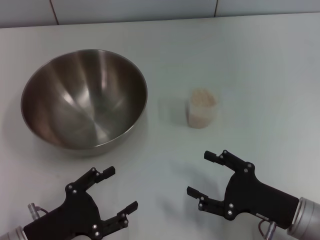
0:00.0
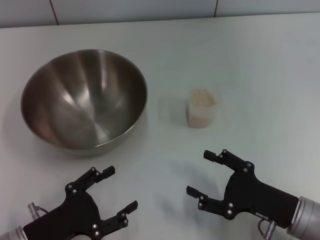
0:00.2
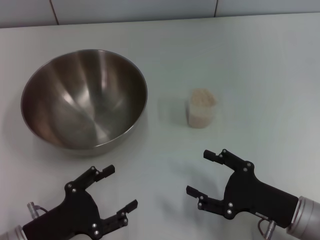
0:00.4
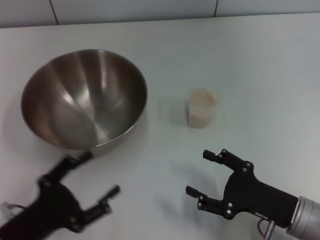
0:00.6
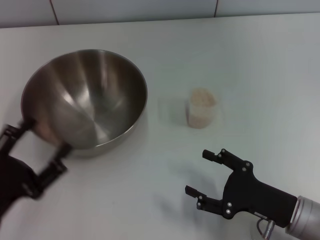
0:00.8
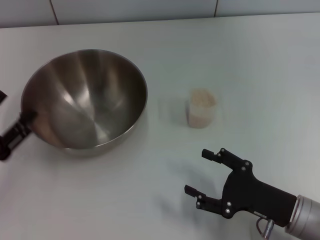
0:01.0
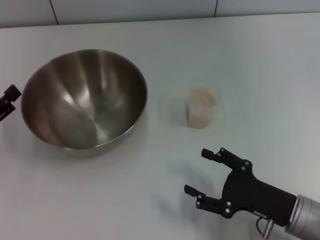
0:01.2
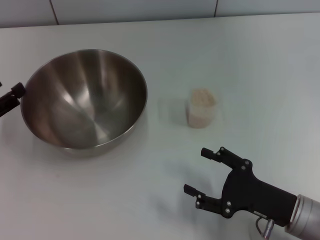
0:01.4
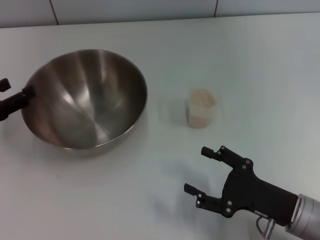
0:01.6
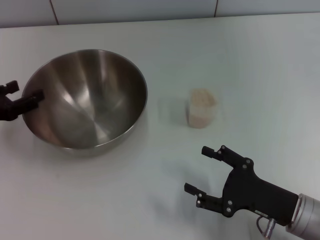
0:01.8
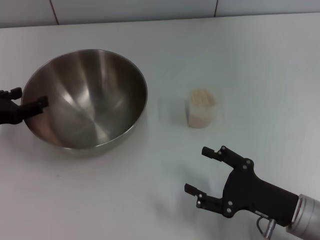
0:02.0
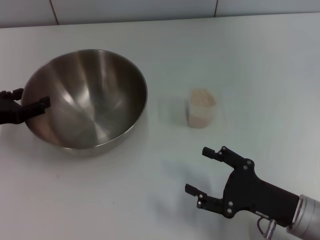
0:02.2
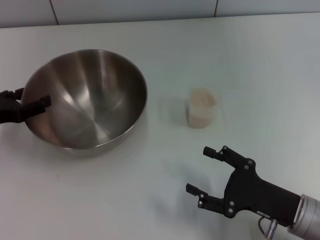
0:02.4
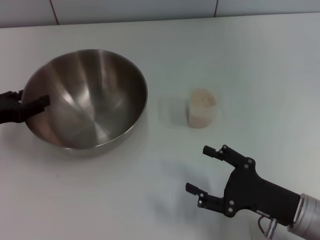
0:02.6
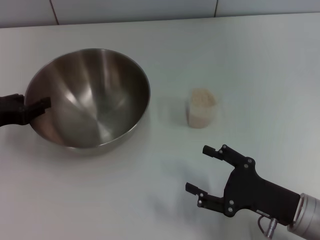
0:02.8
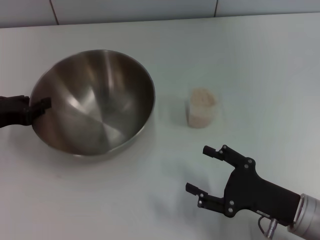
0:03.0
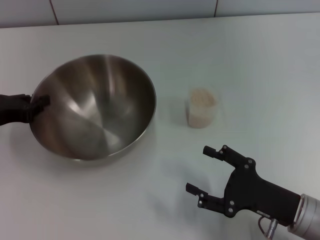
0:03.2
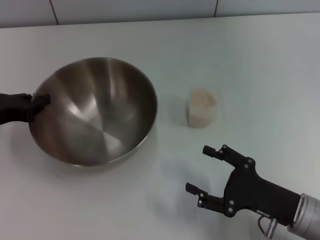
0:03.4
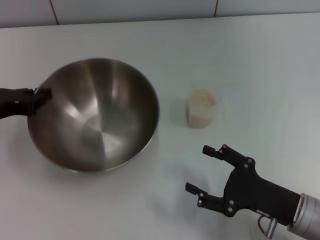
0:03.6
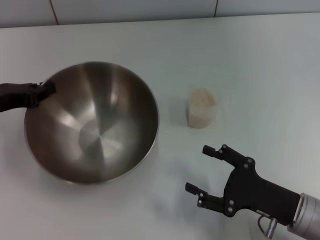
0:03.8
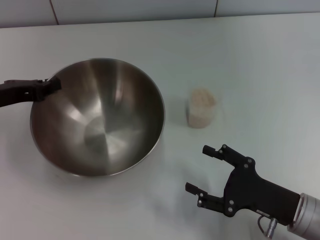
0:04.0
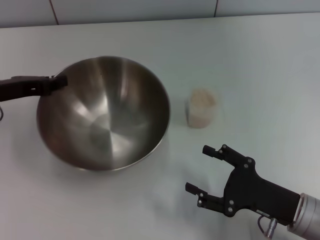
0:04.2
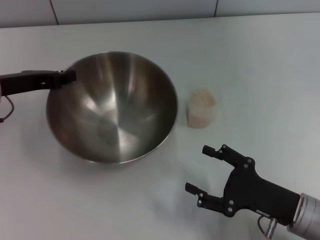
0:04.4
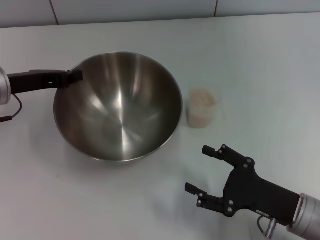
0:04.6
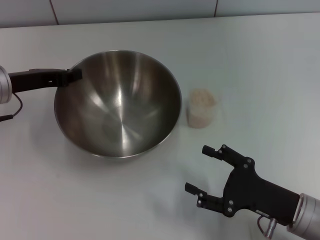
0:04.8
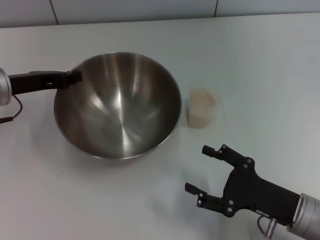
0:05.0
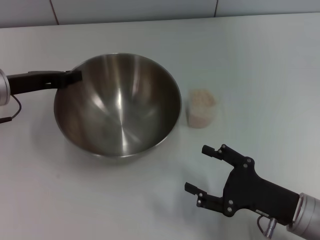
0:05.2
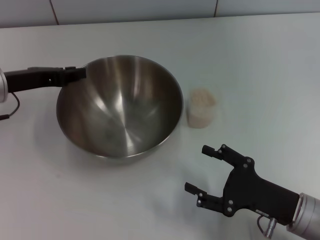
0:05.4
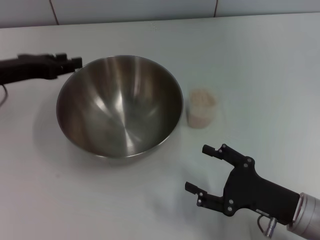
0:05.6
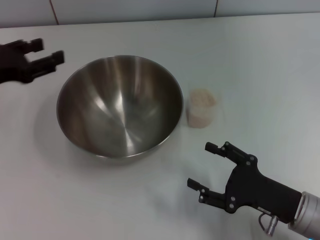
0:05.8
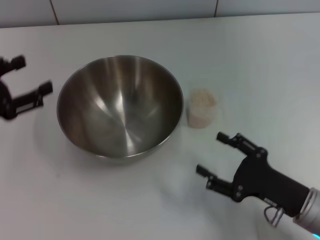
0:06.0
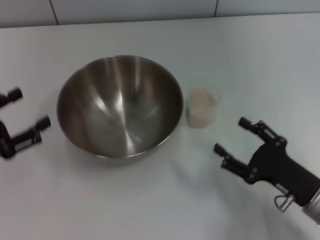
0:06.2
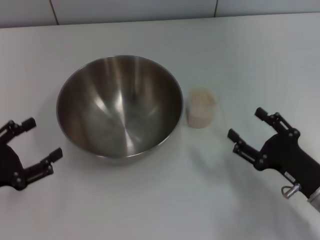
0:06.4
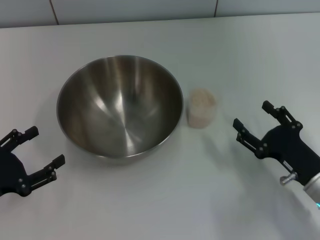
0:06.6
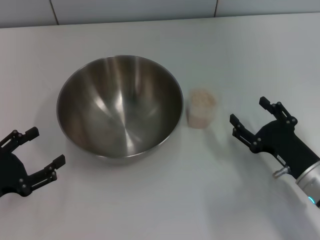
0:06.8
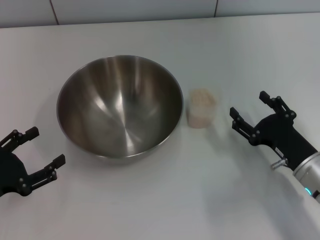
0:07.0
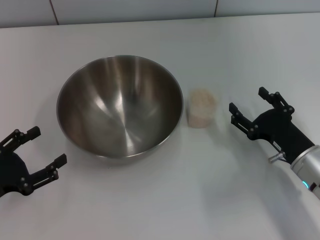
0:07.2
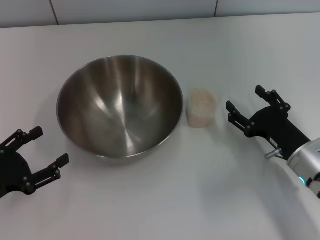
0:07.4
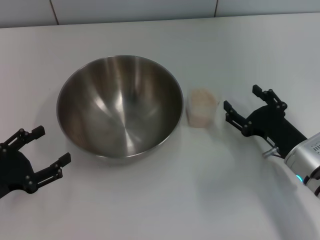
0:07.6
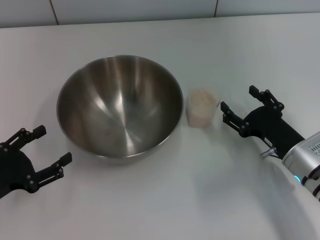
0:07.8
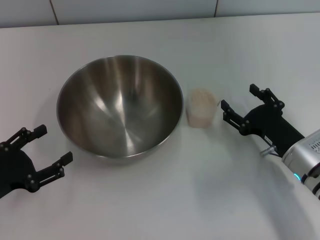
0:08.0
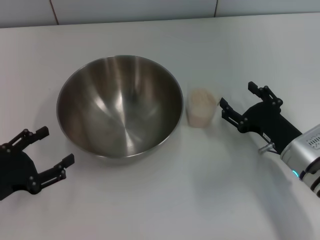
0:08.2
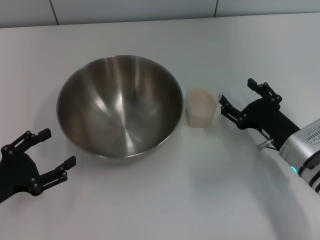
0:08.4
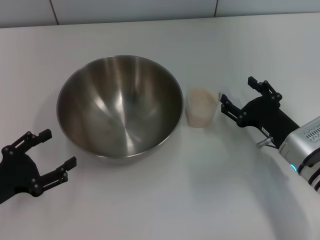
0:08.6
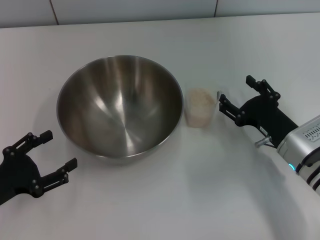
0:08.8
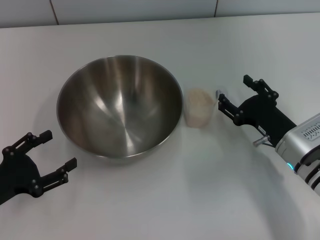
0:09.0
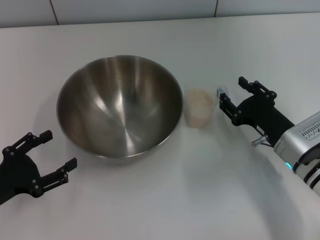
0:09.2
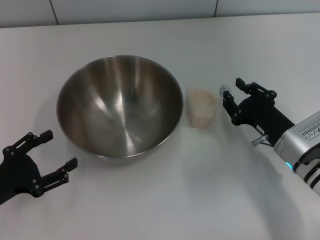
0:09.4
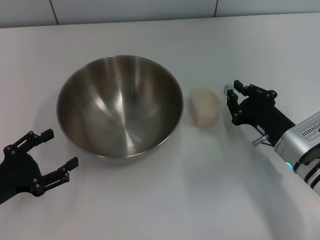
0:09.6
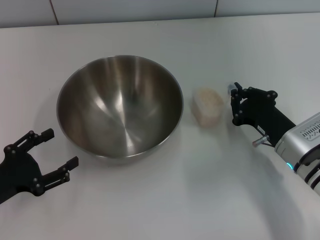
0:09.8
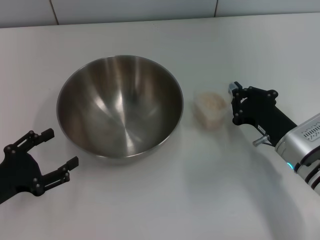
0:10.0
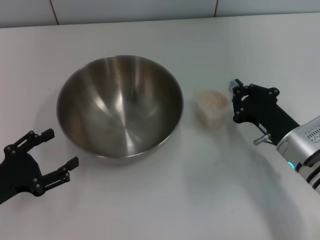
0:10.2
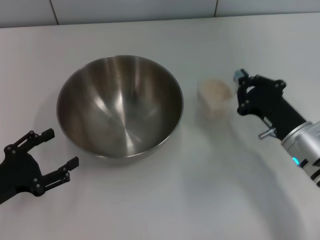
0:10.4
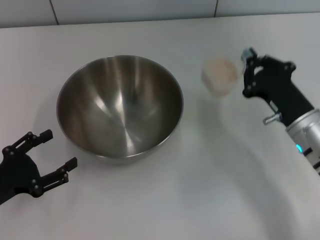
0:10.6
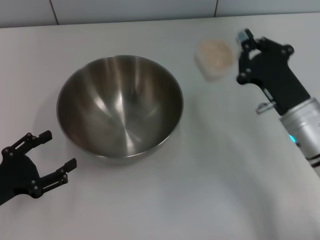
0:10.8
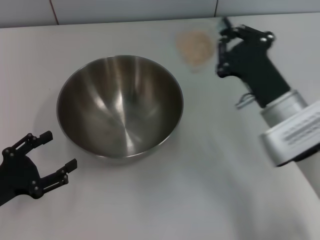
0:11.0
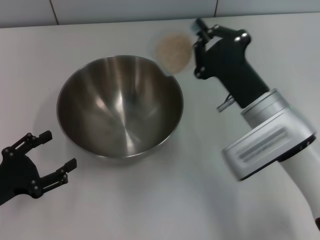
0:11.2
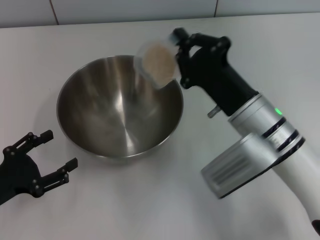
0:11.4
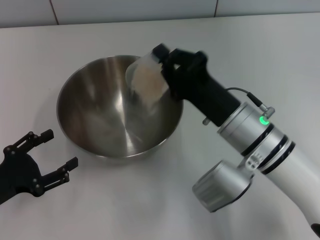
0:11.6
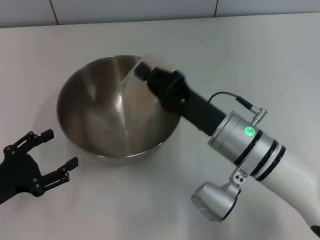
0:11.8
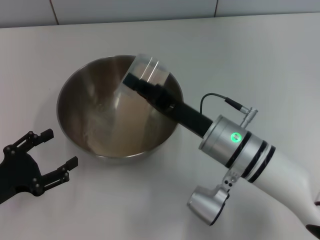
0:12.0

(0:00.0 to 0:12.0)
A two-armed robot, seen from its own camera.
Task of the whole recording: Place the bowl in the middle of the table with one hand and pour the rice from the grain cup into it with the other hand.
Step, 0:00.0 - 0:03.6: Pick up the bowl with the left gripper.
Step, 0:03.8 - 0:05.6: Place the bowl in the center of view with the left gripper.
Step, 0:06.0 - 0:10.4: Pick up the cup with rice in it with the right gripper.
0:00.0 - 0:01.6: The left gripper moves forward, to the left and upward, some 20 cm.
0:01.6 - 0:03.0: The left gripper closes.
0:03.0 - 0:04.4: The left gripper ends up approximately 5 cm from where it was.
0:04.4 - 0:06.0: The left gripper is displaced backward by some 5 cm, and opens its fingers.
0:06.0 - 0:07.6: The left gripper goes about 10 cm downward and backward; the right gripper is displaced forward by some 5 cm.
0:07.6 - 0:09.0: The grippers make only small movements.
0:09.0 - 0:10.4: The right gripper closes up.
0:10.4 - 0:12.0: The right gripper is displaced to the left by approximately 10 cm.

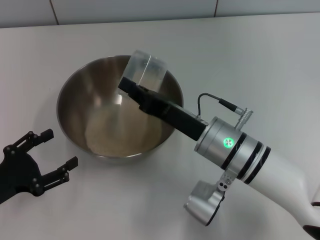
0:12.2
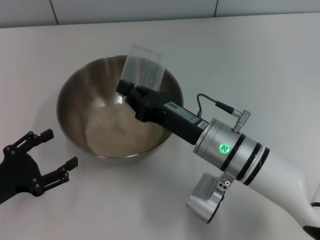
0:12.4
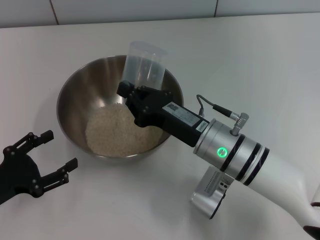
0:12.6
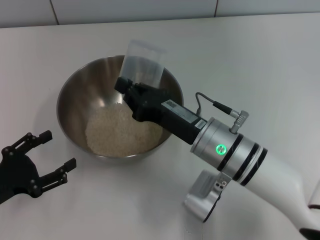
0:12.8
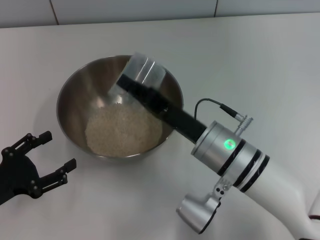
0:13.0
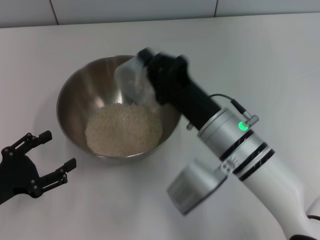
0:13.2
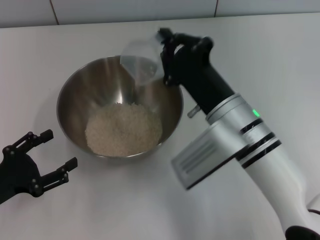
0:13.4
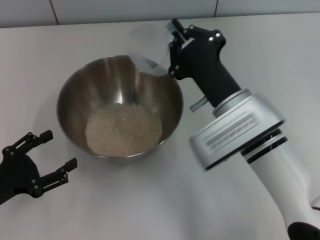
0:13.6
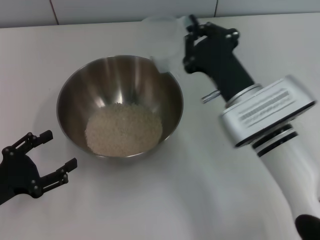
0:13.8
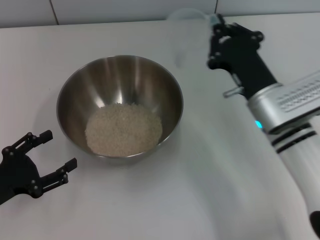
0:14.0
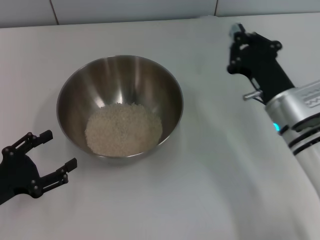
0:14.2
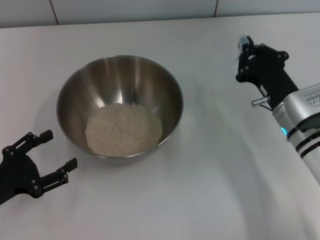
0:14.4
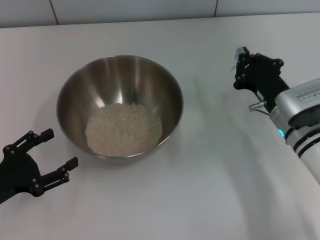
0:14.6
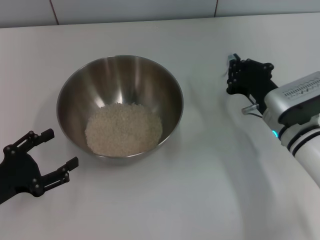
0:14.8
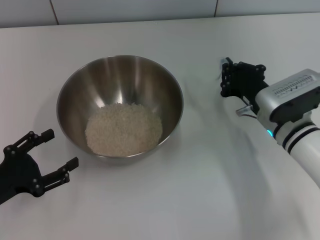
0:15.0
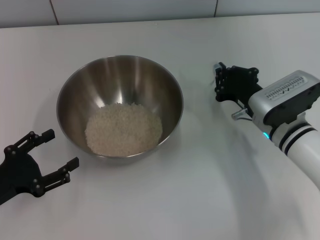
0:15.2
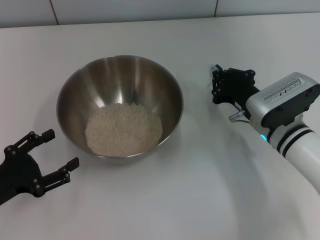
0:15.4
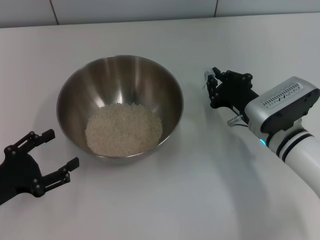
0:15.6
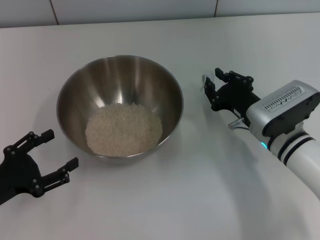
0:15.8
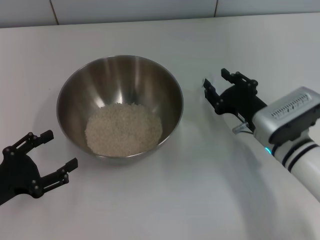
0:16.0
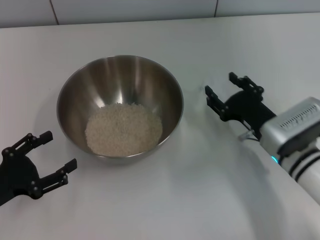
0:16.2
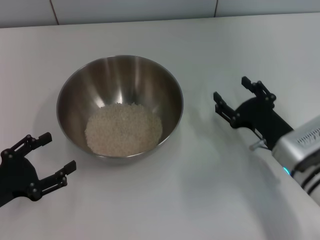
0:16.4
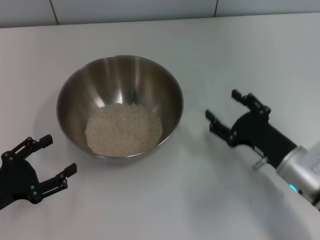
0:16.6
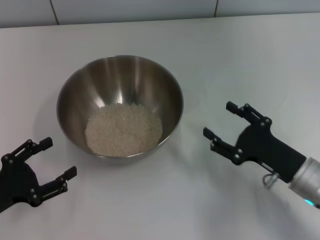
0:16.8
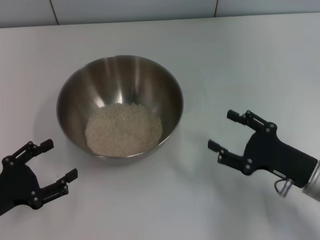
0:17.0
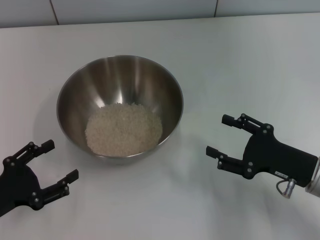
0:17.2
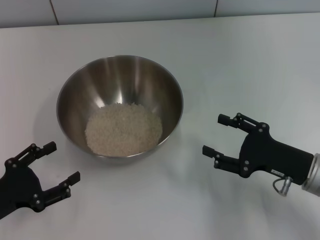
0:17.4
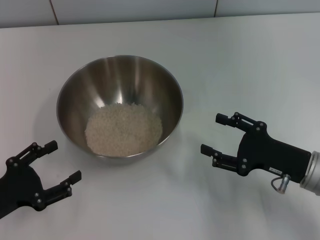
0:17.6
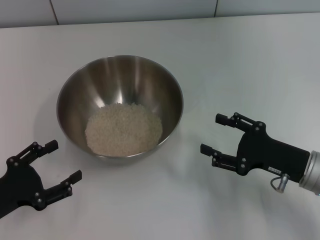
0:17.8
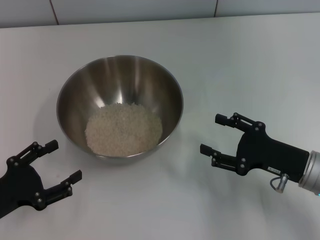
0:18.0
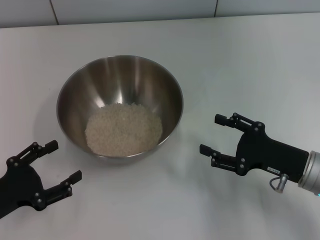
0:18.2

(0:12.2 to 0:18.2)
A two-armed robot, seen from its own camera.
Task of the whole recording: Place the bowl in the middle of the table with one hand and pour the rice from the grain cup into it with the other hand.
Step, 0:12.2 - 0:14.0: Pour the rice from the cup into the bowl with the right gripper.
Step, 0:14.2 - 0:16.4: Place the cup on the table with the right gripper.
0:13.8 - 0:15.2: The right gripper heads to the right and downward, covering some 10 cm.
0:15.2 - 0:16.6: The right gripper goes approximately 10 cm backward, and opens its fingers.

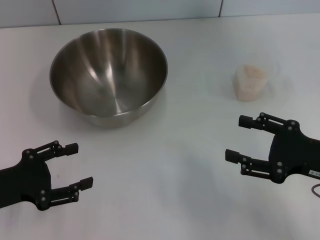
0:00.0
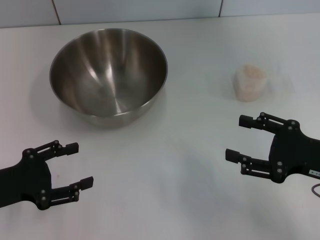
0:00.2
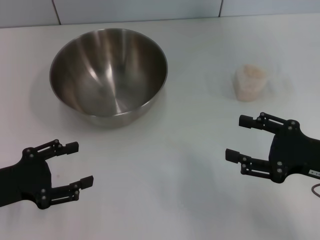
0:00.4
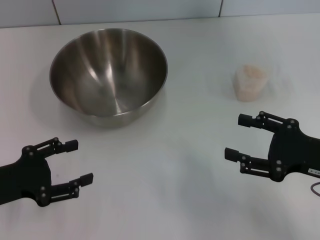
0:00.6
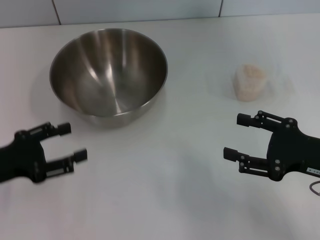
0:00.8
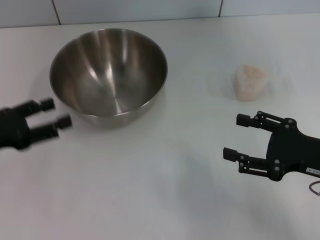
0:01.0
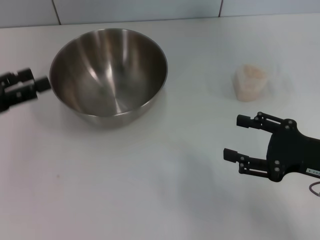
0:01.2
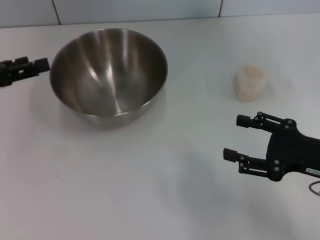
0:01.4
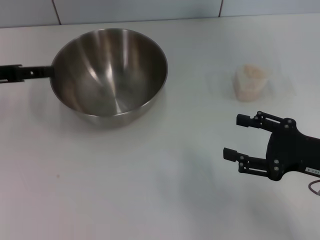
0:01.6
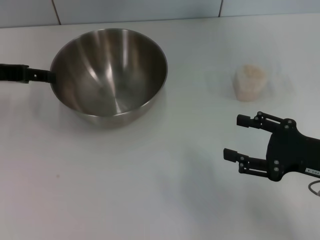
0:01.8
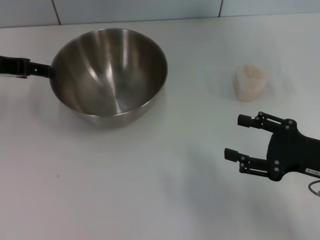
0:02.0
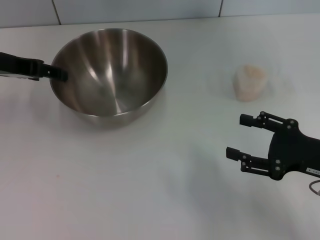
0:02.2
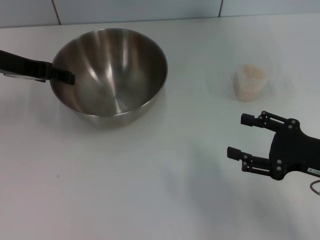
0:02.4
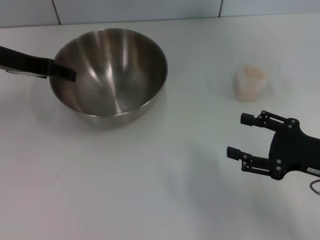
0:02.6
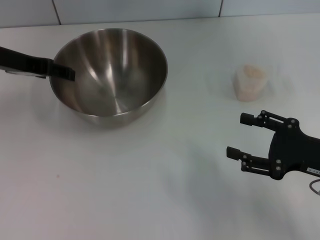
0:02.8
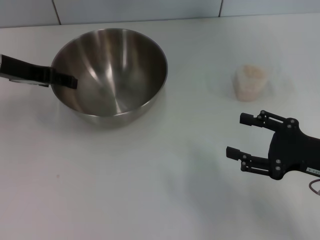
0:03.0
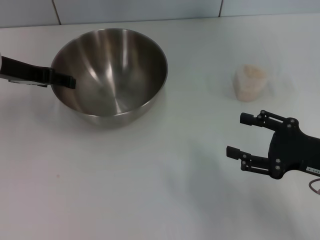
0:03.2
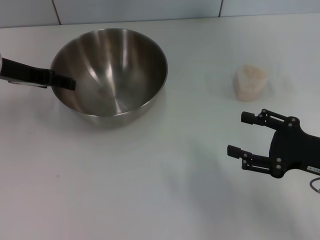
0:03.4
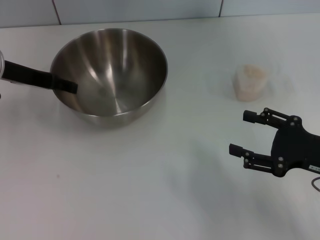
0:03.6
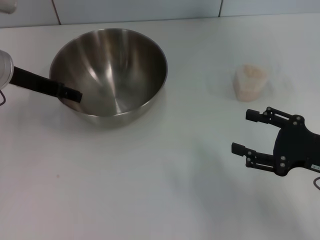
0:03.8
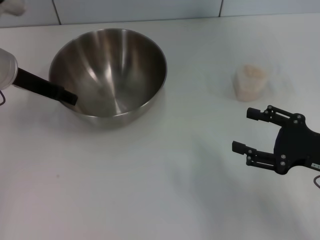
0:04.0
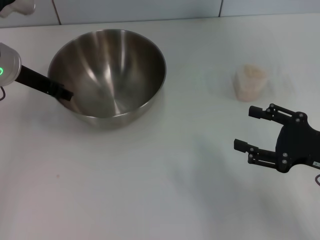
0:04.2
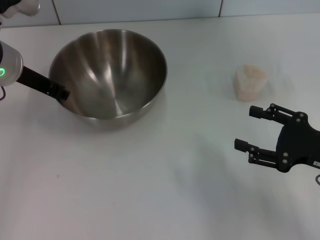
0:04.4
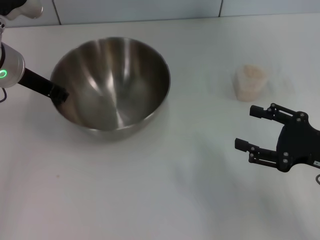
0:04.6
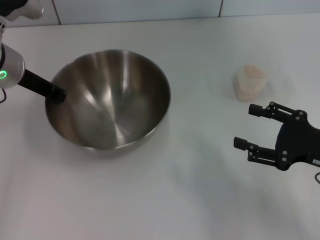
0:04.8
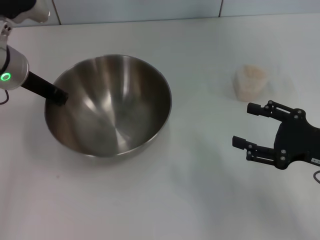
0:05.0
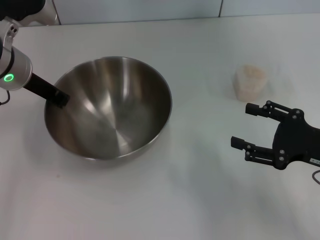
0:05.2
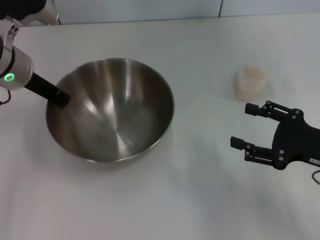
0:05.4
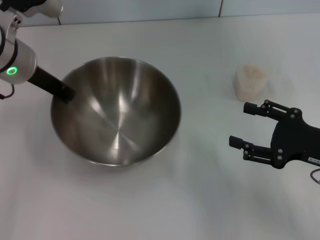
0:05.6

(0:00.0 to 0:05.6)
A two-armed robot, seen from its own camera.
Task of the whole recording: Place the bowl in the middle of the table with one hand and pour the rice from the grain cup into it with the other hand.
Step, 0:00.0 - 0:04.8: Pick up the bowl with the left gripper.
0:00.0 - 0:01.4: The left gripper heads upward and forward, covering some 15 cm.
0:01.4 - 0:02.8: The left gripper moves forward and to the right, some 10 cm.
0:02.8 - 0:04.2: The grippers stay close to where they were, moving slightly.
0:04.2 - 0:05.6: The left gripper closes up.
